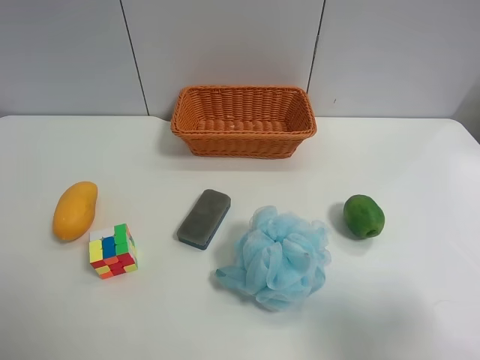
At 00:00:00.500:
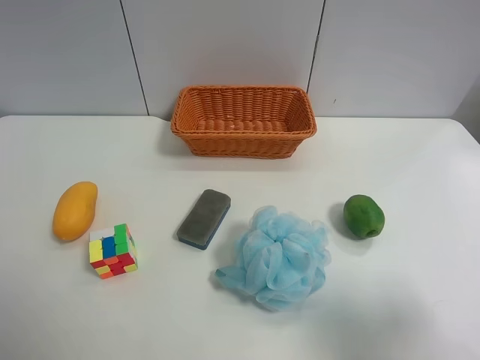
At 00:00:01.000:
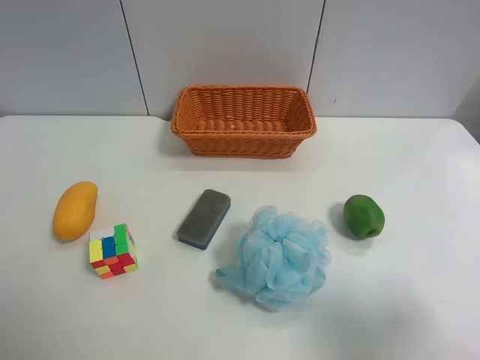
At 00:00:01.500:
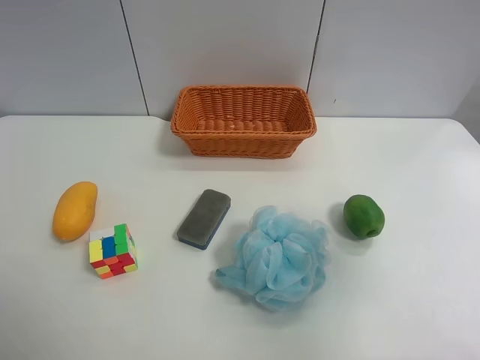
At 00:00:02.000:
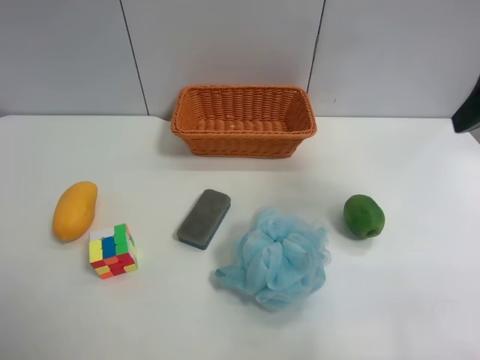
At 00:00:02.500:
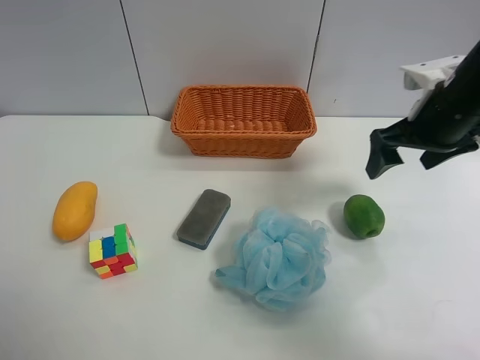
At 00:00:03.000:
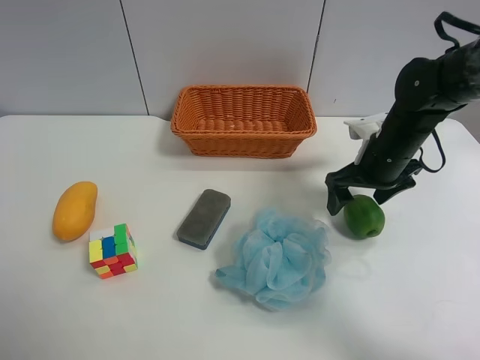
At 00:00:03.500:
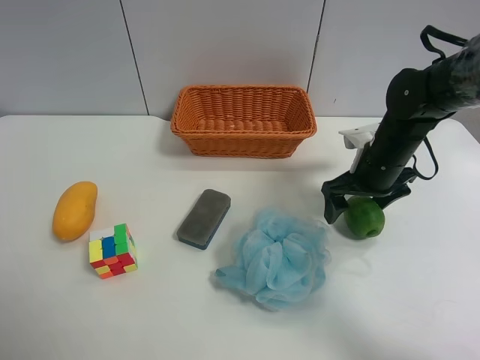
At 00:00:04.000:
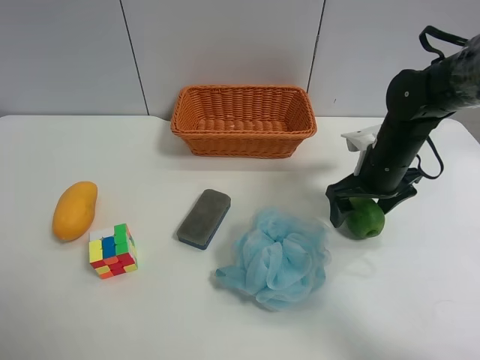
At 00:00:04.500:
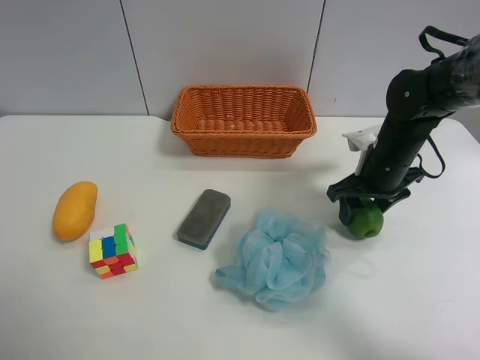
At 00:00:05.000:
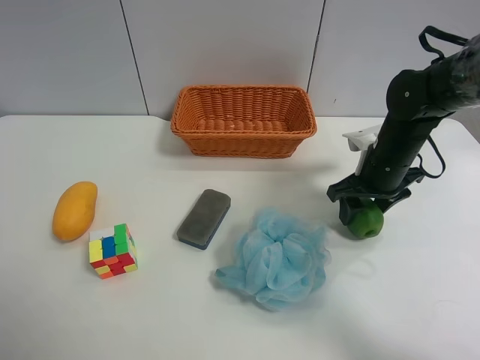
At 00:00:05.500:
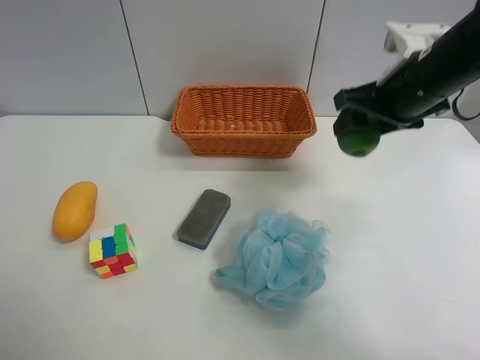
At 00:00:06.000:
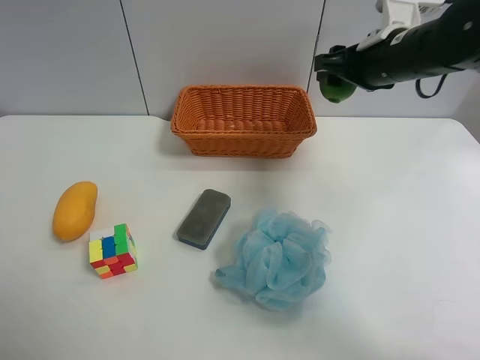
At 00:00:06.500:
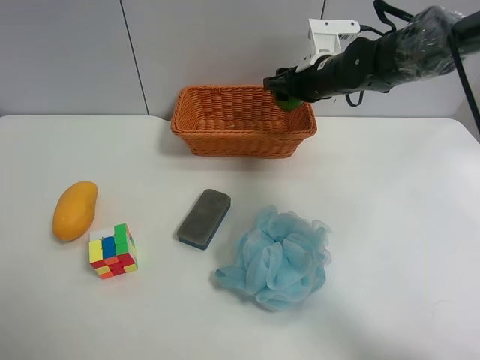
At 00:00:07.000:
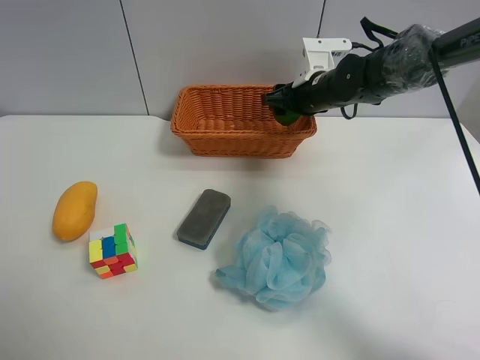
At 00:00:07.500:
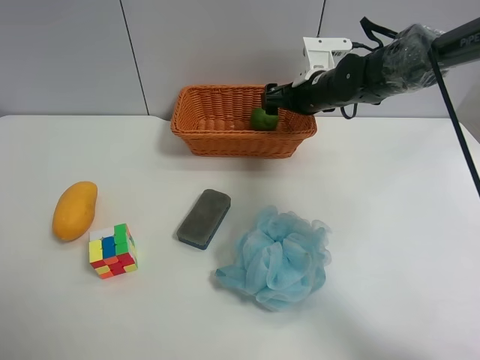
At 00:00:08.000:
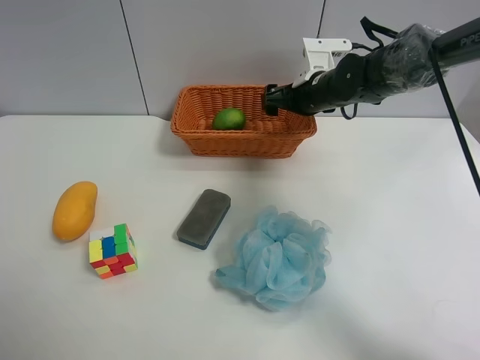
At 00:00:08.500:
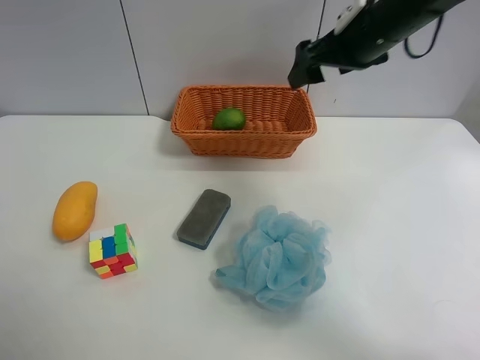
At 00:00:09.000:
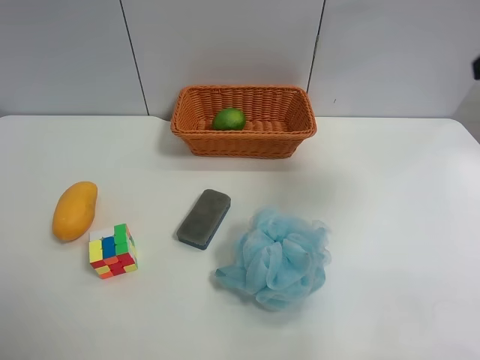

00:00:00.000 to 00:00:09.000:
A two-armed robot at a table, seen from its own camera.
Task of the whole recording: Randomly grab green lemon or mangoes from the table and put them in a basket.
Step, 00:00:00.000 to 00:00:04.500: Grasp the Lemon with the right gripper.
Step, 00:00:05.000 to 00:00:08.000: Place the Lemon into the basket with the right gripper.
00:00:00.000 to 00:00:02.000: The right gripper is displaced forward by approximately 20 cm.
00:00:02.000 to 00:00:04.500: The right gripper shifts approximately 25 cm downward and forward, and closes its fingers.
00:00:04.500 to 00:00:07.000: The right gripper is displaced forward and to the left by roughly 15 cm, and moves some 15 cm upward and comes back.
00:00:07.000 to 00:00:09.000: The right gripper goes some 35 cm backward, upward and to the right, and opens up.

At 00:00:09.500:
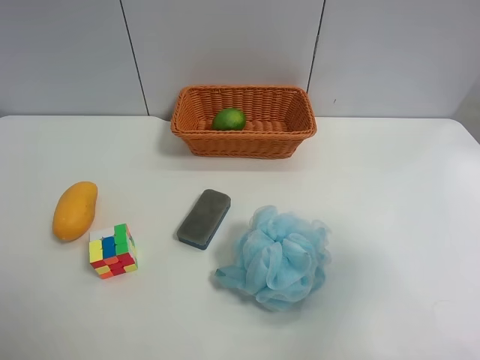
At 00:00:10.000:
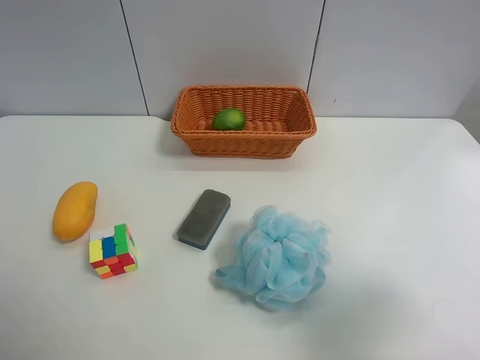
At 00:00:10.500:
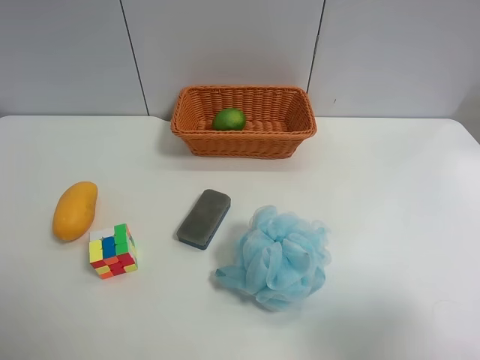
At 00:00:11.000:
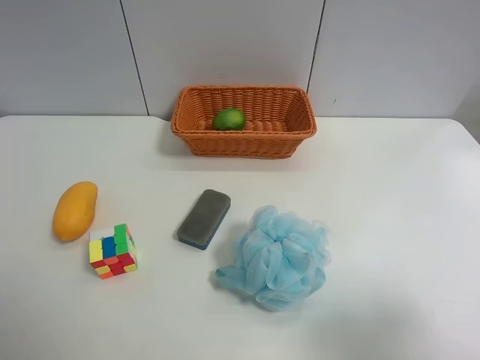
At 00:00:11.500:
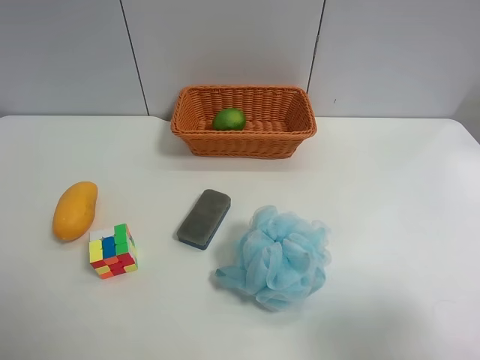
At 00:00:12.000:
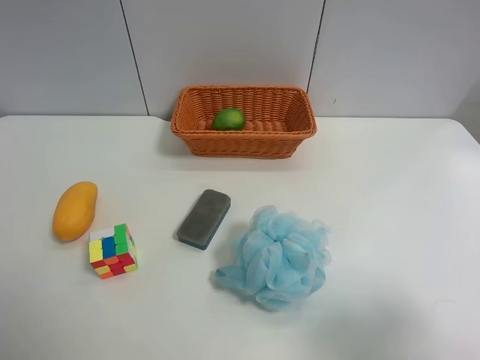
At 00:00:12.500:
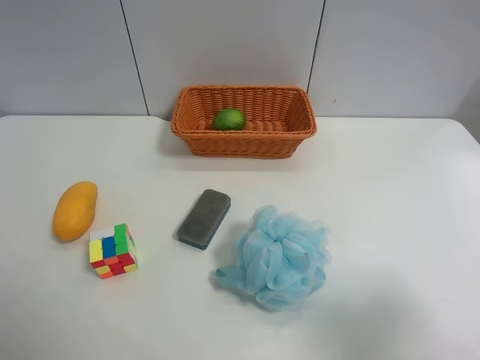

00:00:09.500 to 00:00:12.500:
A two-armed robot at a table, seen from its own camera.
Task of the whole recording: Randomly grab green lemon or mangoes from the table and put them in a basket.
00:00:09.500 to 00:00:11.000: The right gripper shifts approximately 5 cm backward.
